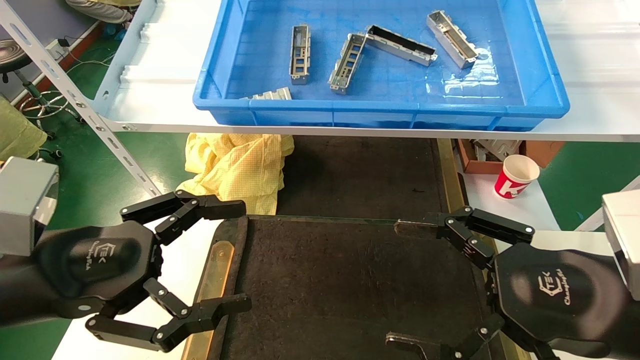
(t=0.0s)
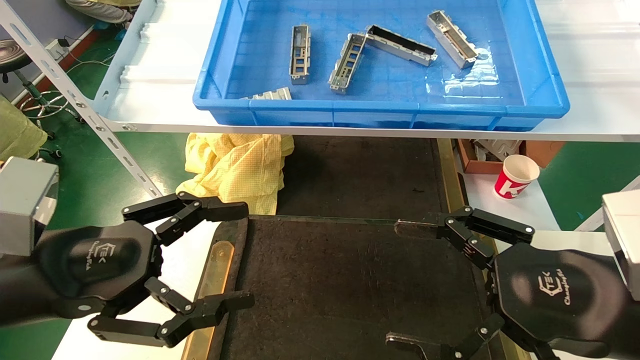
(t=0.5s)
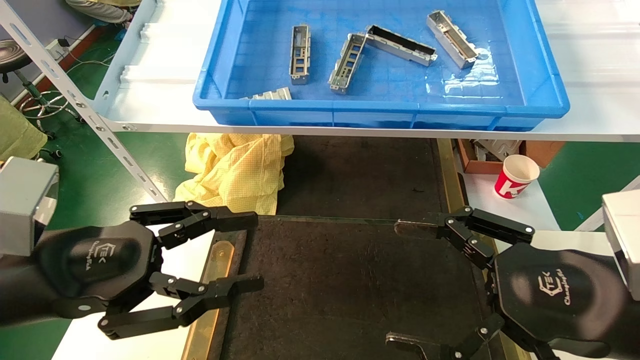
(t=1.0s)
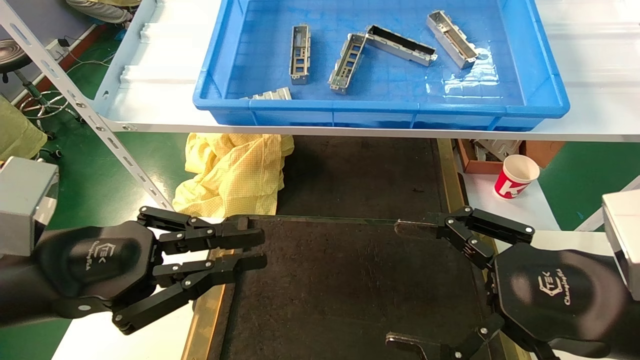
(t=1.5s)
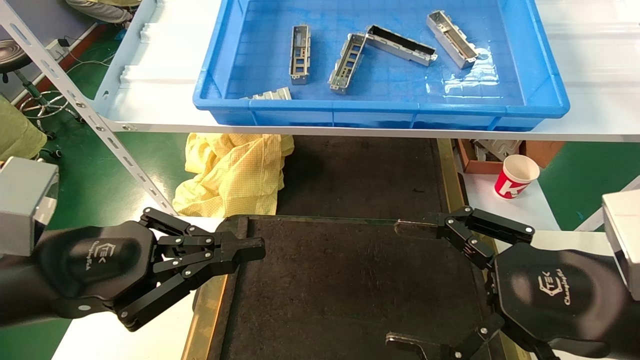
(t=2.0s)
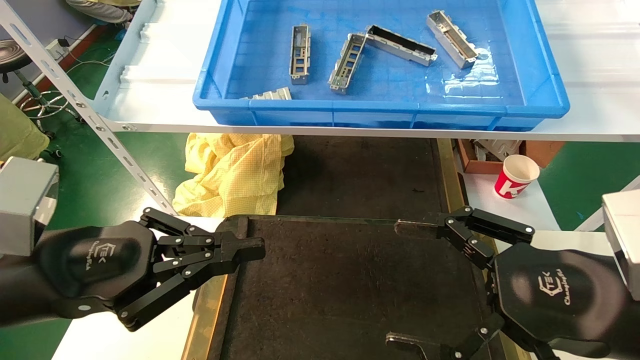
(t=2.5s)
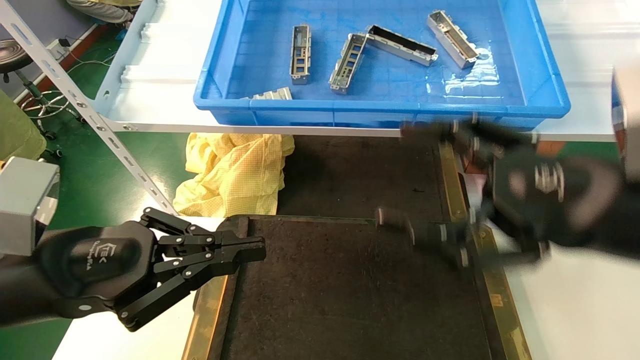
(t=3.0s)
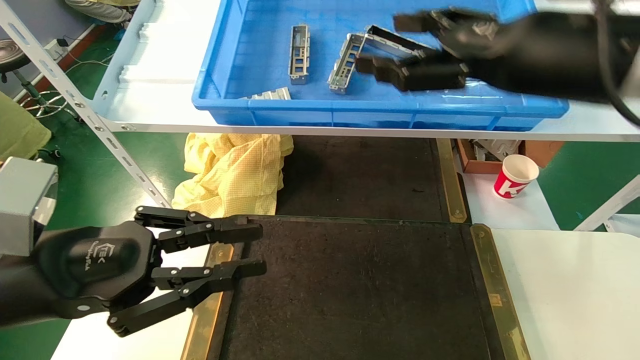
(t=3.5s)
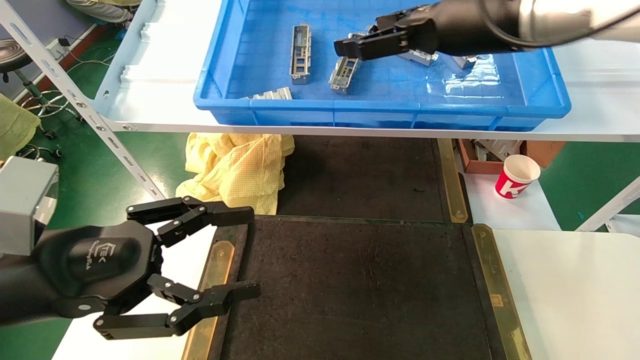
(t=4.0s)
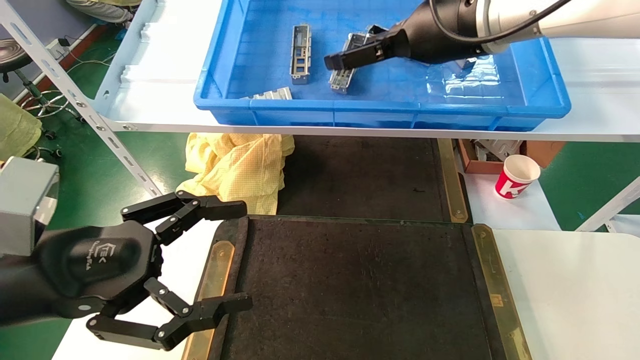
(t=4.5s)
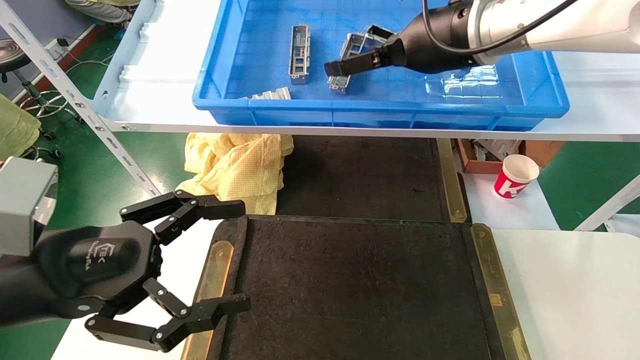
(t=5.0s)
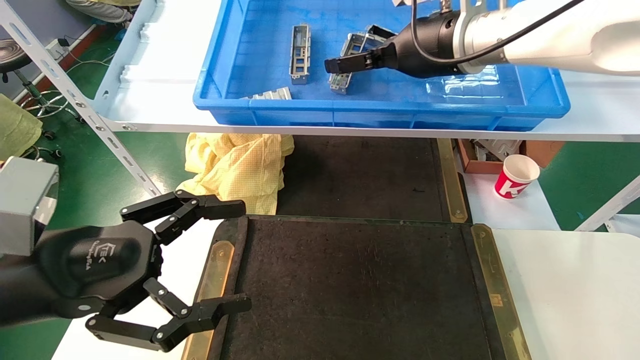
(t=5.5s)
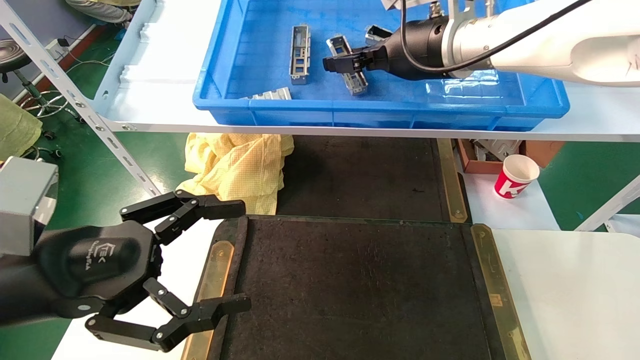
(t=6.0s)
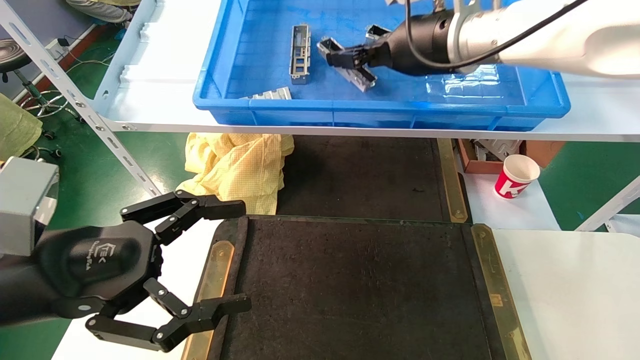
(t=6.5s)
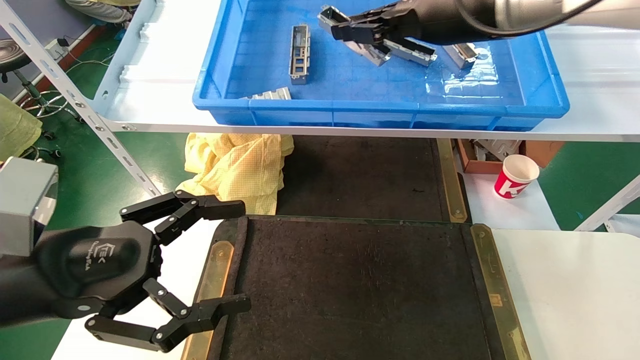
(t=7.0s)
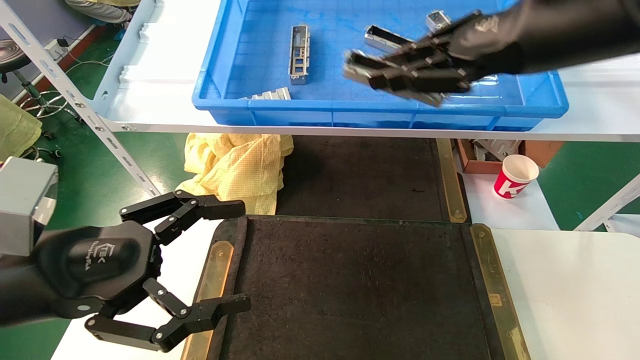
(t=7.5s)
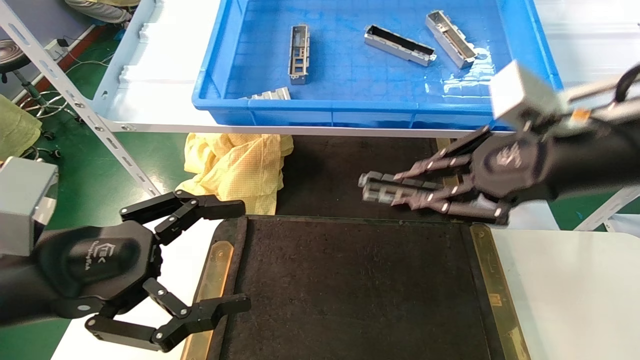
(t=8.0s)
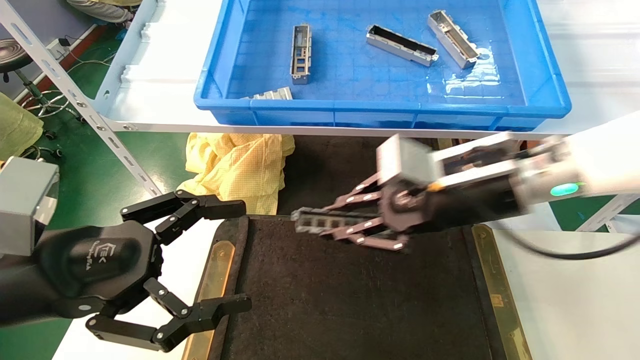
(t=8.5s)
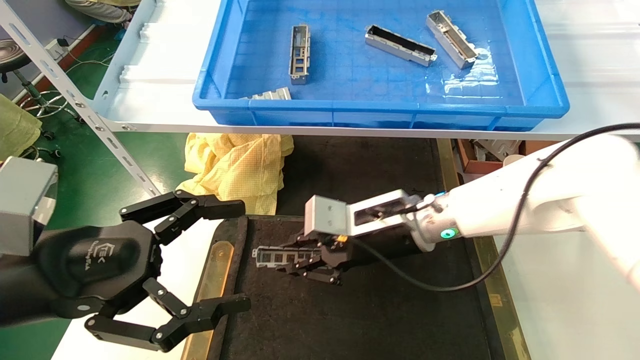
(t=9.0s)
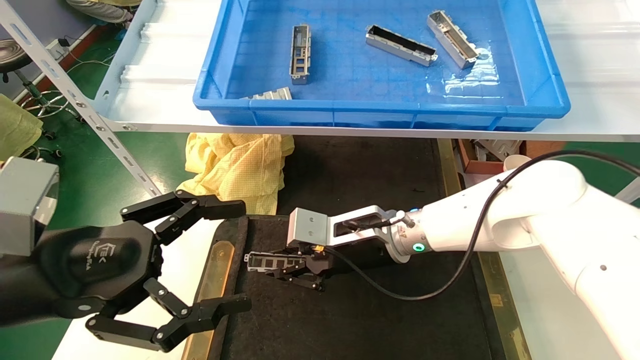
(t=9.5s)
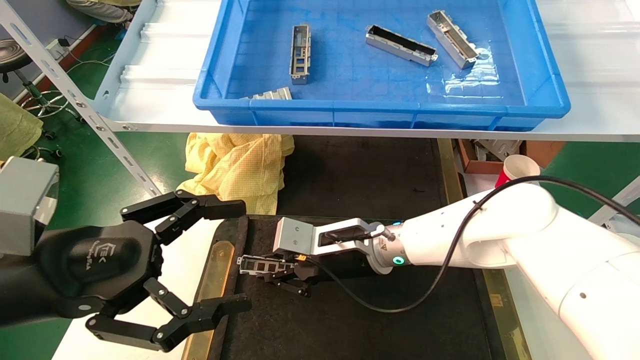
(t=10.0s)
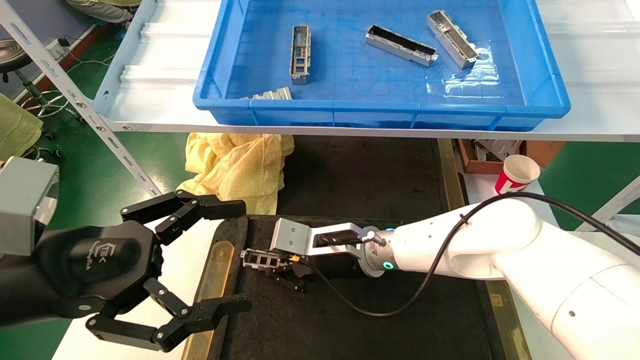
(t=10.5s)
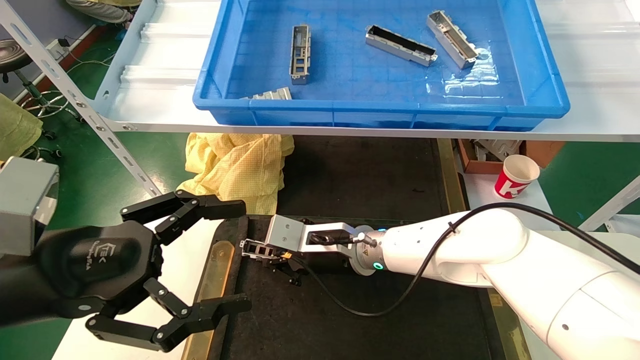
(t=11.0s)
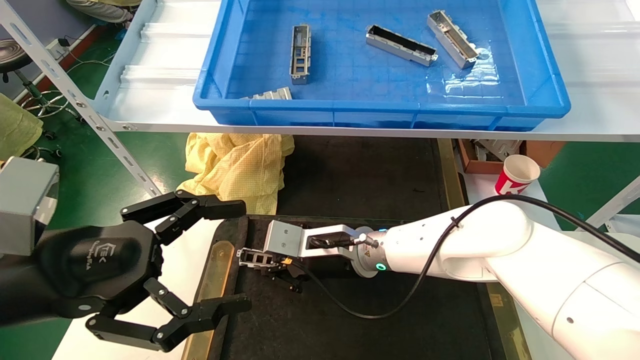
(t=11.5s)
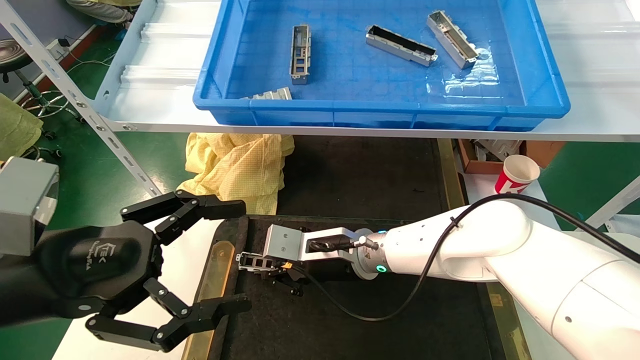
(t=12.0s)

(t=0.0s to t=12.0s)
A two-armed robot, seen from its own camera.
Task of the whole recording: grasp the part and place them on the black container.
Step, t=3.0s - t=7.5s: Pick up and lift the front USB bracket from the feeding area.
t=0.0s - t=2.0s: The left gripper closes.
t=2.0s - t=4.0s: The right gripper moves upward and forward, approximately 30 cm. The left gripper opens up.
t=4.0s - t=6.0s: The left gripper opens its fingers, while the right gripper is displaced forward by approximately 5 cm, and closes.
t=6.0s - t=8.0s: The right gripper is displaced backward, to the right and downward by some 20 cm, and closes up.
t=8.0s - t=10.0s: The right gripper moves to the left, downward and forward, some 30 cm.
t=10.0s - t=12.0s: The grippers make only small movements.

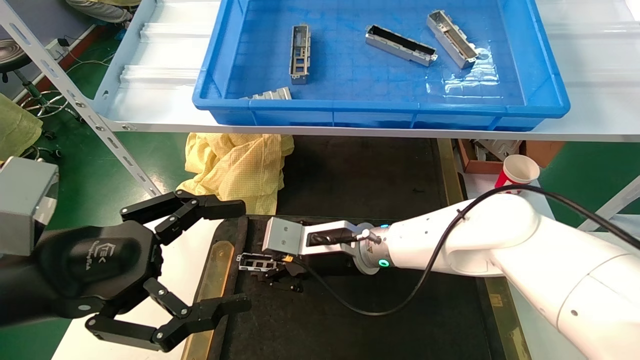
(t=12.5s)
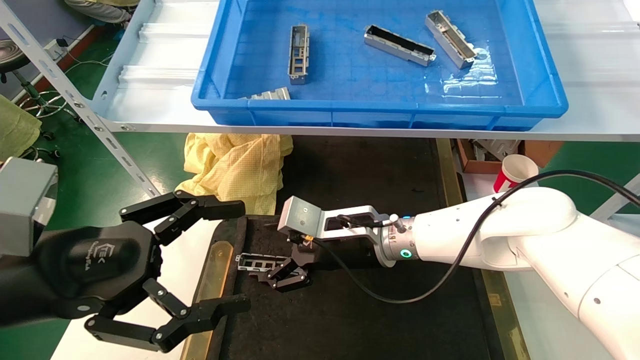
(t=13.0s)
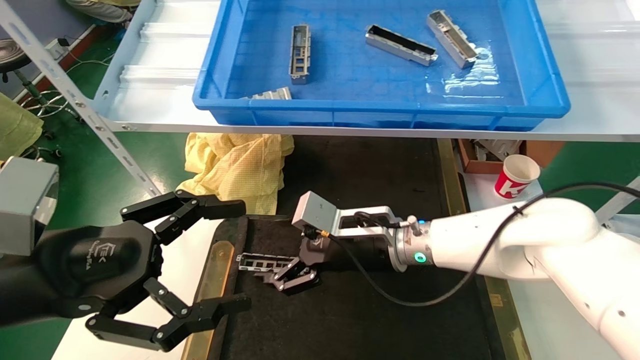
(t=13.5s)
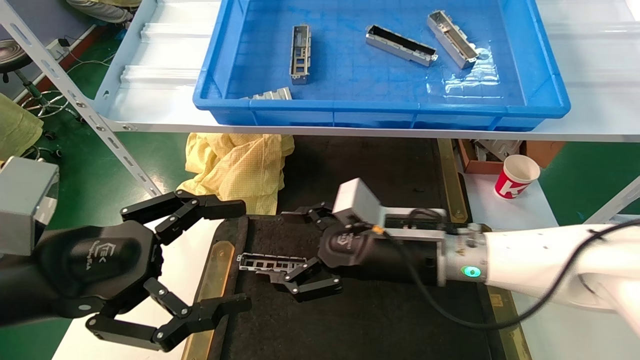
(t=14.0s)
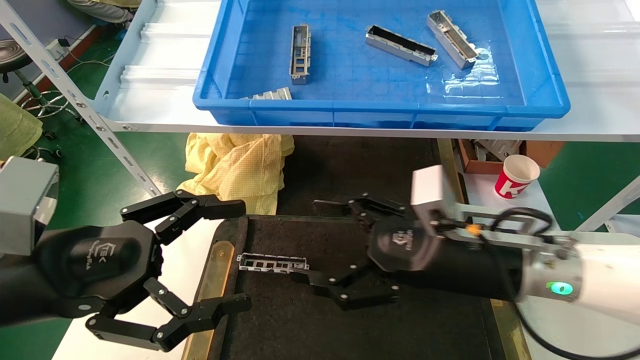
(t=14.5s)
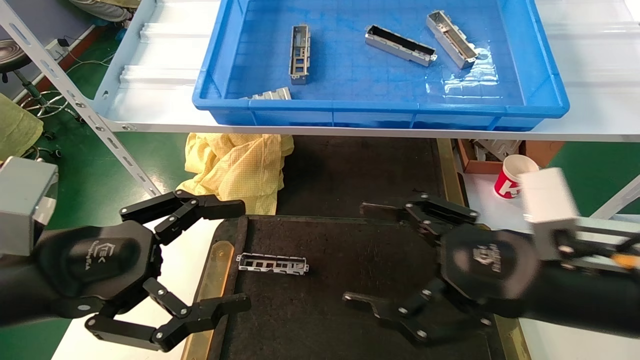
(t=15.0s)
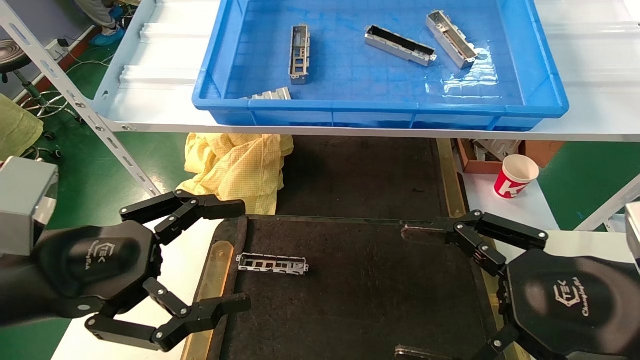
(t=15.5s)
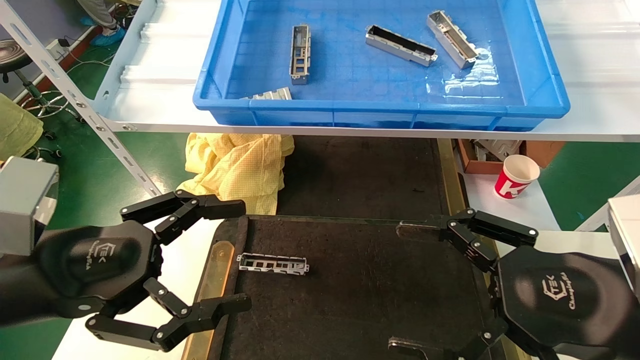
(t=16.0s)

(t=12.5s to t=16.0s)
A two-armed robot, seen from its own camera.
Task of the whole recording: grasp the part and place them on the black container.
t=12.5s - t=14.5s: The right gripper is displaced to the right and backward by roughly 20 cm, and opens.
t=14.5s - t=16.0s: The right gripper is displaced backward and to the right by about 15 cm.
